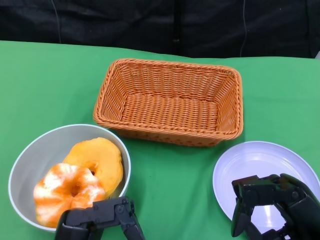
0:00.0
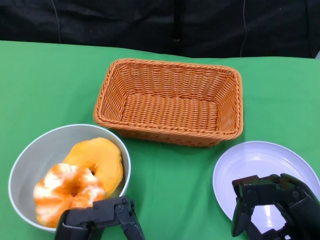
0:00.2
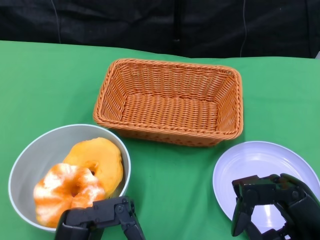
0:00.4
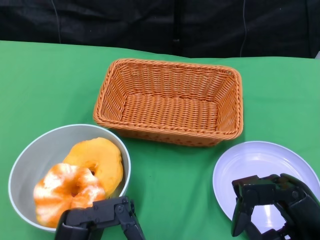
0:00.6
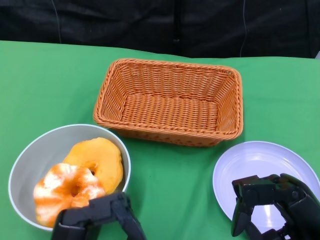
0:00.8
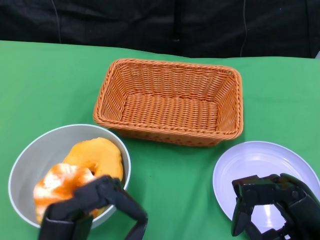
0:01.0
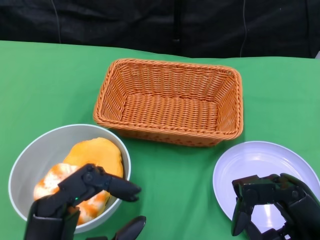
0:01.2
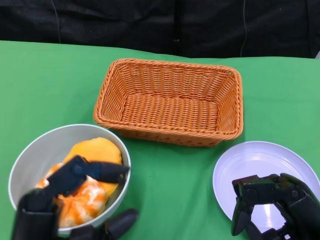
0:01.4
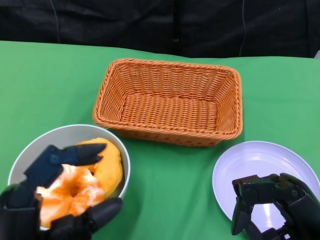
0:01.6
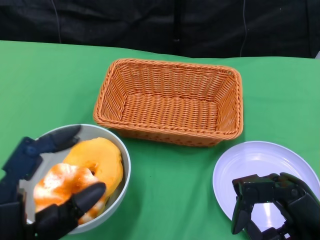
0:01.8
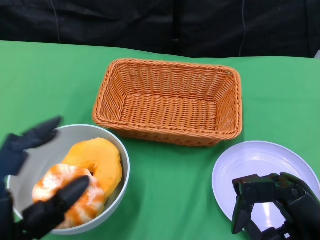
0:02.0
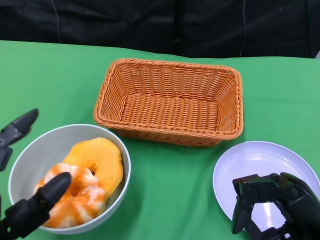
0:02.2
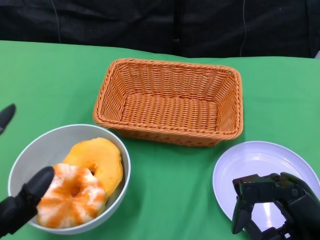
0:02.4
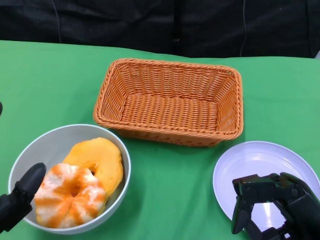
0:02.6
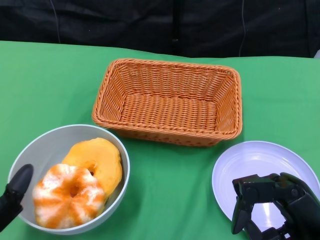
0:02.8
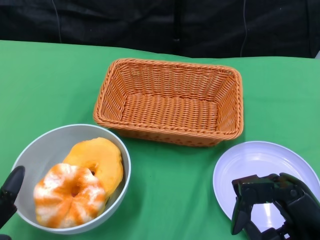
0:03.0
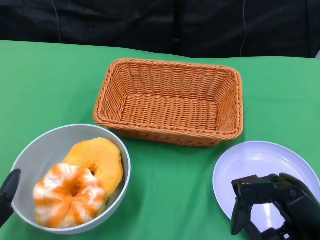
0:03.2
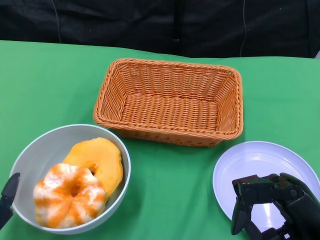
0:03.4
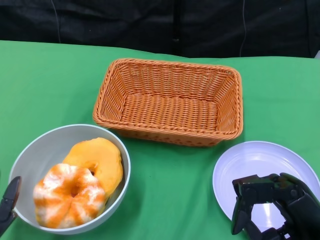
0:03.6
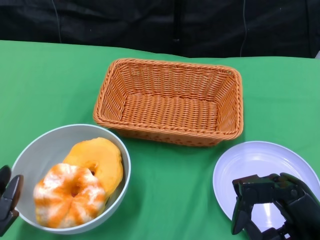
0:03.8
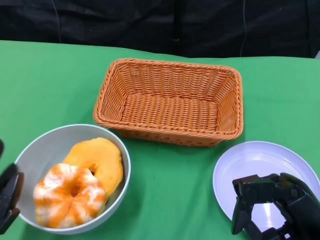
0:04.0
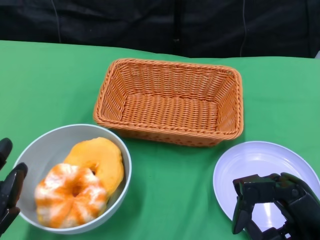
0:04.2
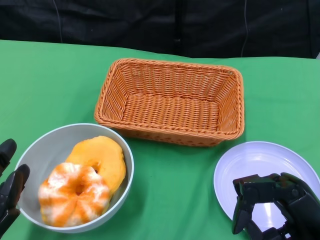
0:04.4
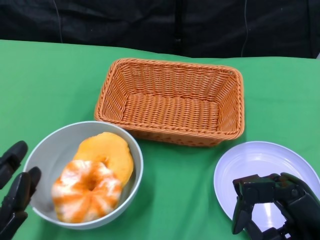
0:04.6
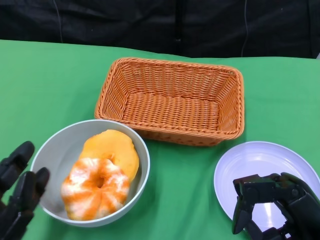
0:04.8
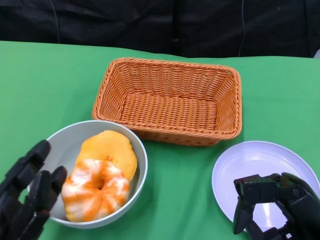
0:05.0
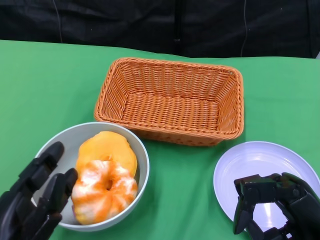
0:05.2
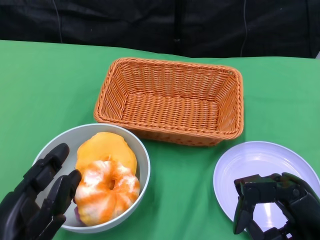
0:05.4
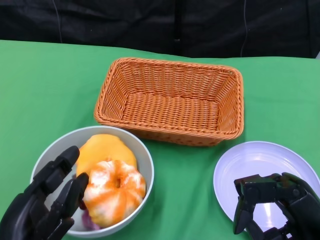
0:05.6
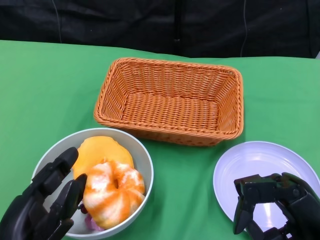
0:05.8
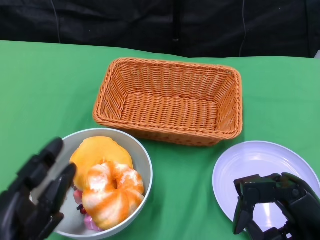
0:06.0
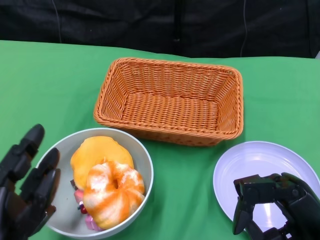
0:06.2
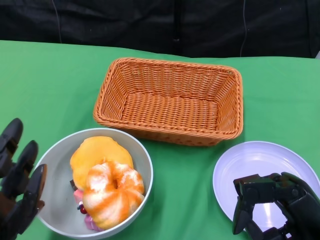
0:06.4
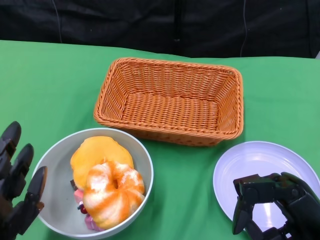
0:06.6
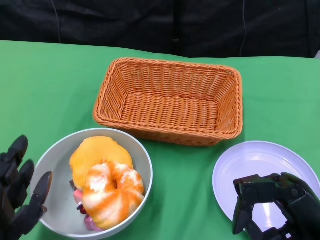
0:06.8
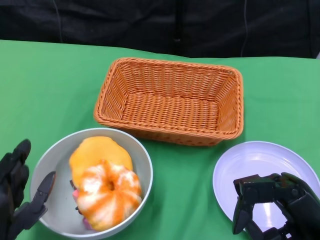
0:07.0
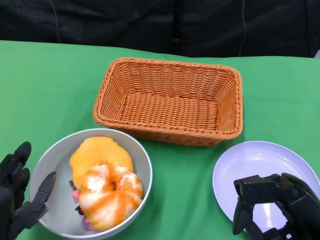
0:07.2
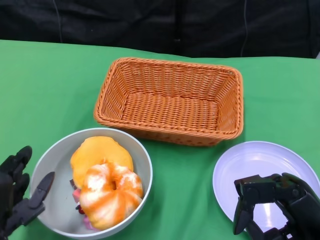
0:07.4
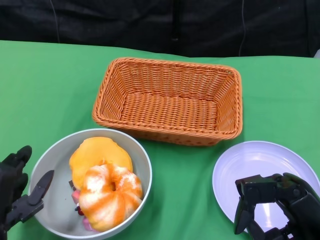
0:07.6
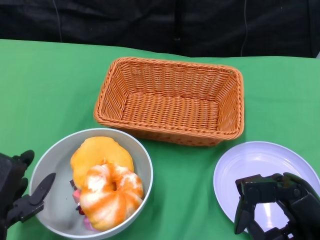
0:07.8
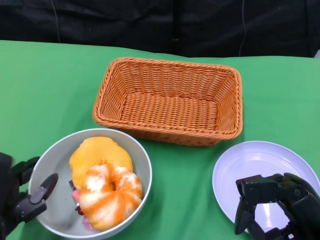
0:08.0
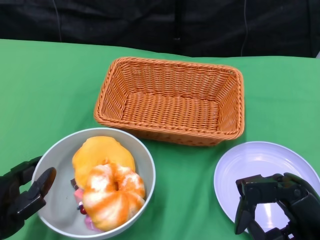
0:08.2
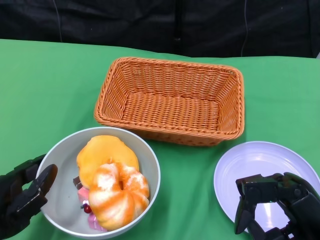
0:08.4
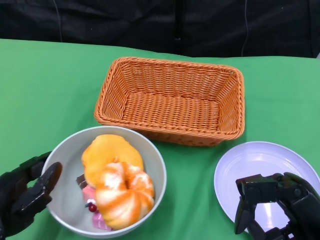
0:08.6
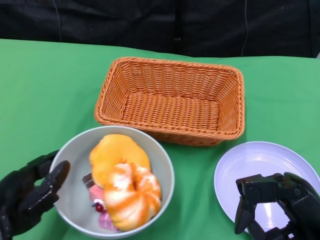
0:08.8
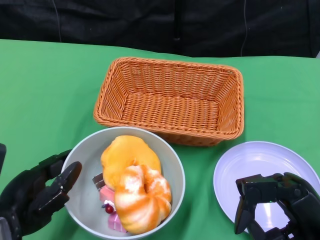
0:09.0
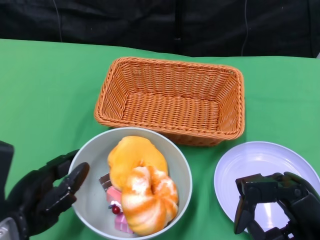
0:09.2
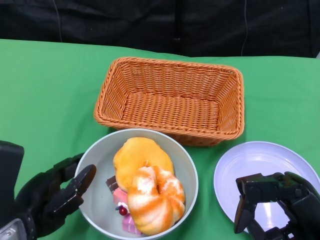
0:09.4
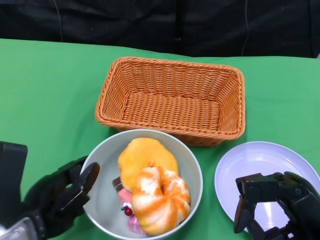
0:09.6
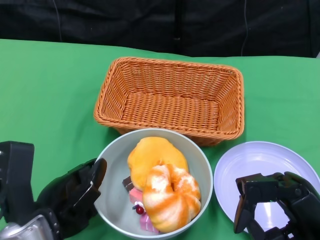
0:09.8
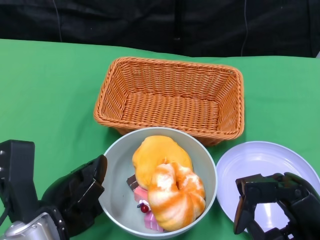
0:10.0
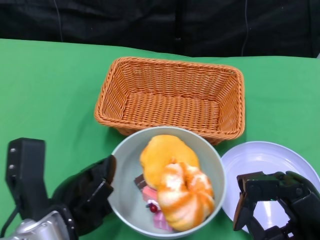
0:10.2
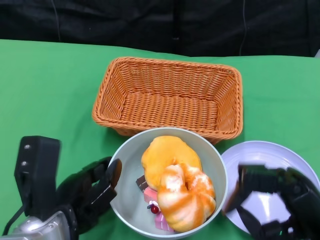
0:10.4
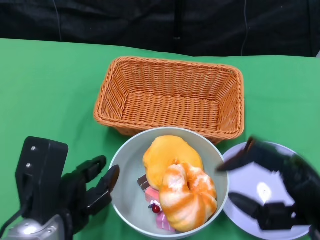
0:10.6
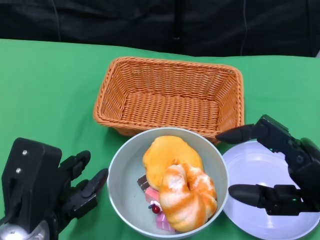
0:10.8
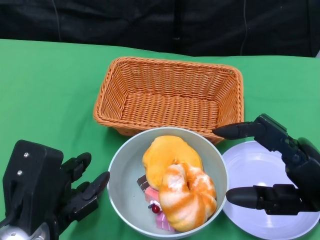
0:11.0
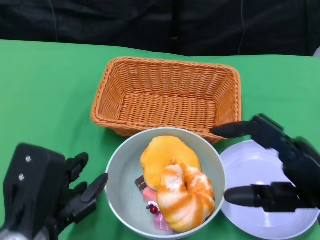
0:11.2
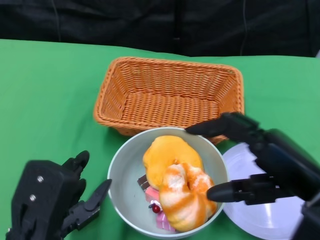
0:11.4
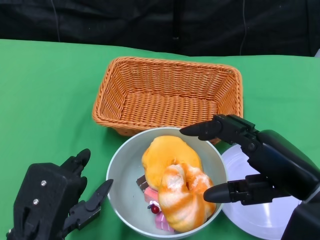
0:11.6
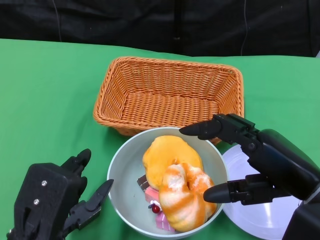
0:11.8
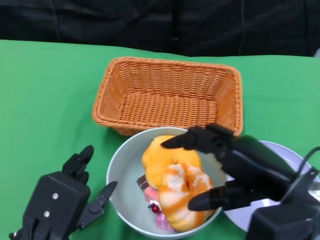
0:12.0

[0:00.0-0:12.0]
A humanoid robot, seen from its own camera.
Step, 0:00.0 to 0:10.6: Push the bowl to the center of the table using the left gripper.
0:01.6 to 0:03.0: The left hand moves to the left, roughly 5 cm.
0:04.4 to 0:06.0: The left hand changes place by about 5 cm.
0:09.0 to 0:10.4: The left hand shifts about 5 cm to the right.
0:10.4 to 0:12.0: The right hand moves upward, approximately 5 cm.

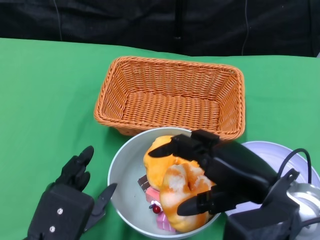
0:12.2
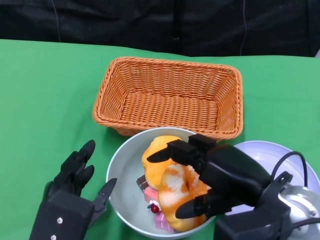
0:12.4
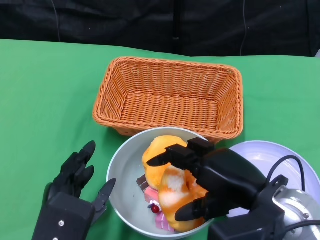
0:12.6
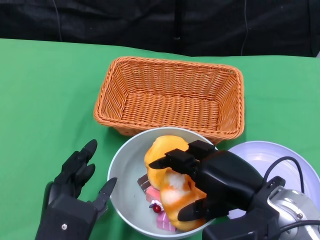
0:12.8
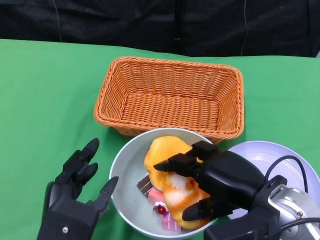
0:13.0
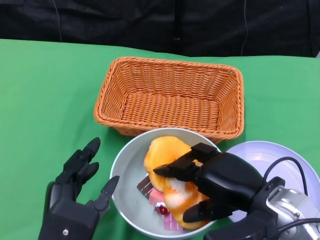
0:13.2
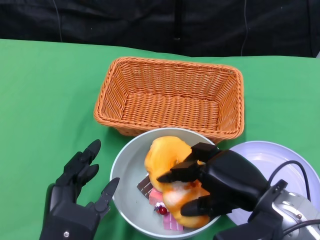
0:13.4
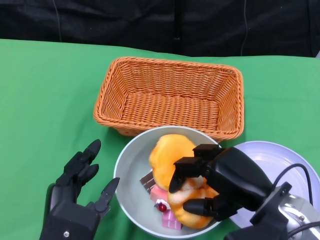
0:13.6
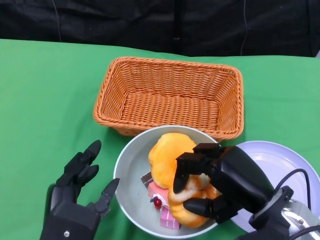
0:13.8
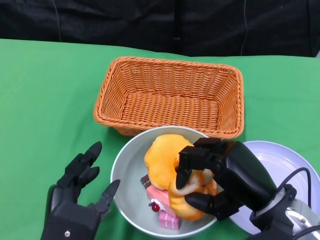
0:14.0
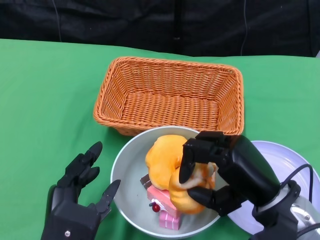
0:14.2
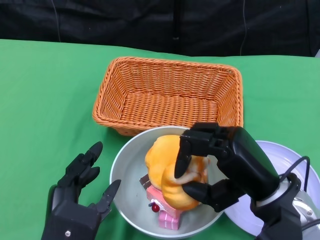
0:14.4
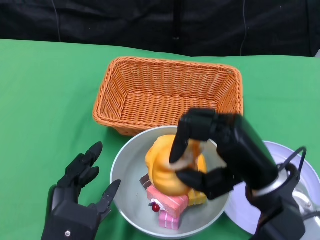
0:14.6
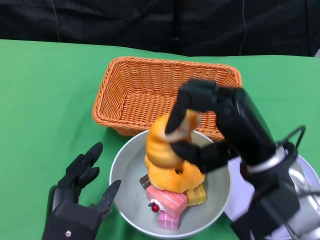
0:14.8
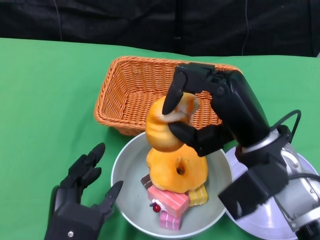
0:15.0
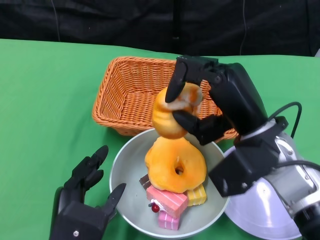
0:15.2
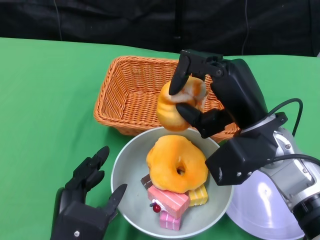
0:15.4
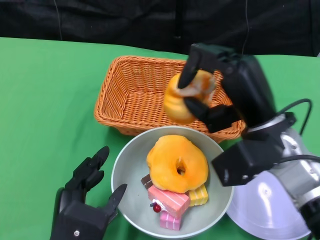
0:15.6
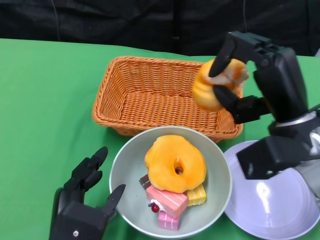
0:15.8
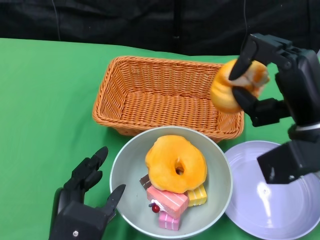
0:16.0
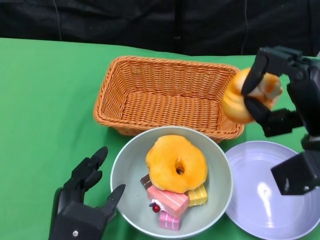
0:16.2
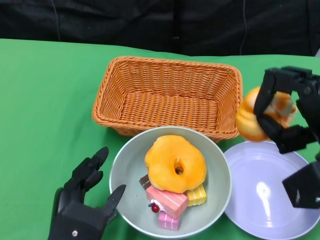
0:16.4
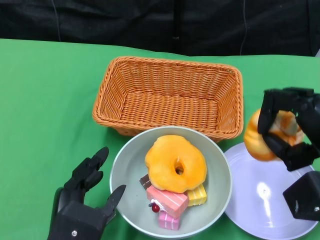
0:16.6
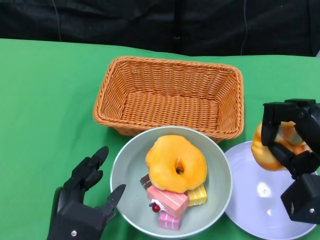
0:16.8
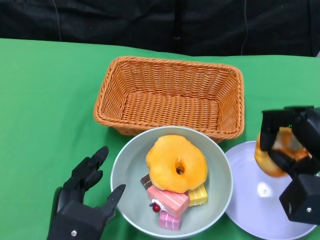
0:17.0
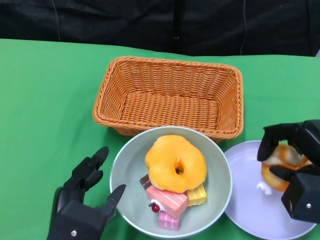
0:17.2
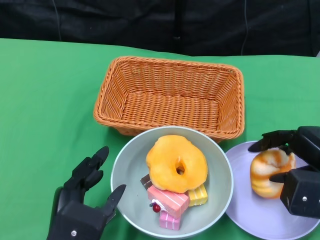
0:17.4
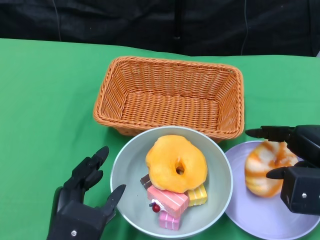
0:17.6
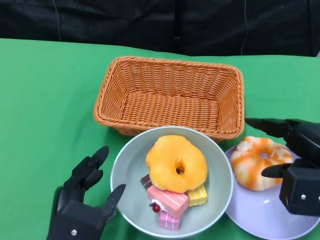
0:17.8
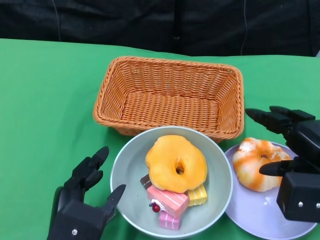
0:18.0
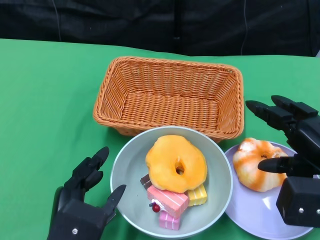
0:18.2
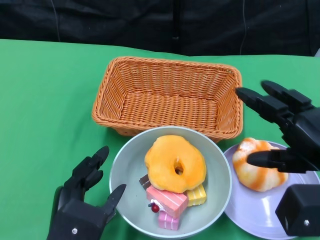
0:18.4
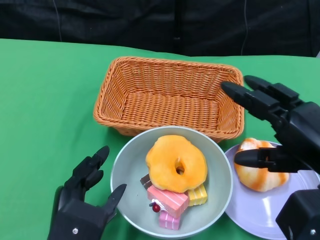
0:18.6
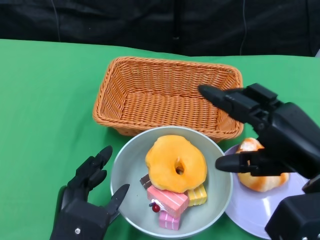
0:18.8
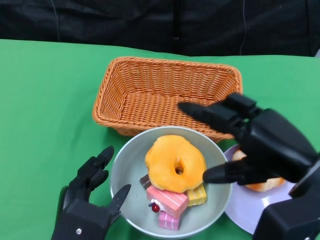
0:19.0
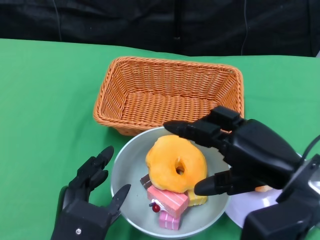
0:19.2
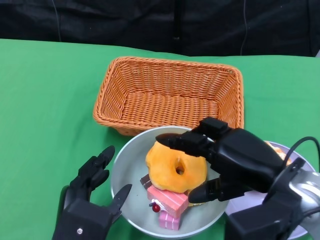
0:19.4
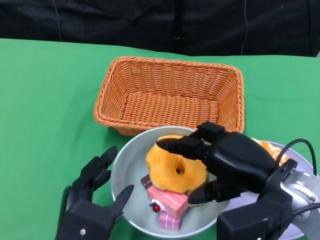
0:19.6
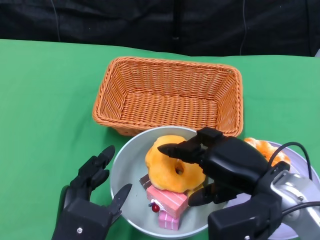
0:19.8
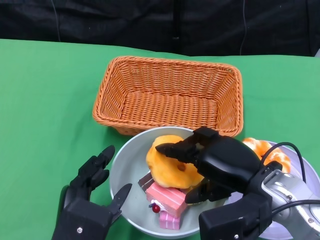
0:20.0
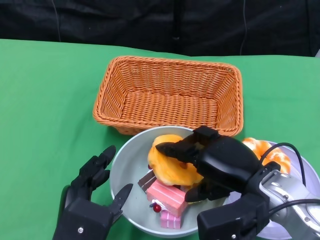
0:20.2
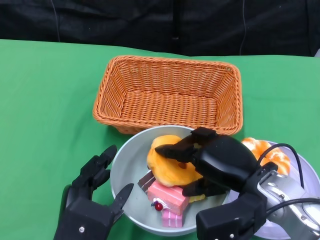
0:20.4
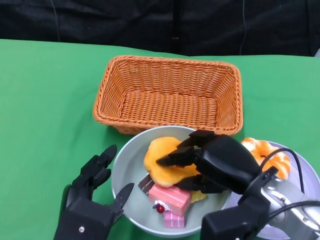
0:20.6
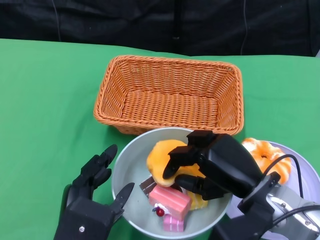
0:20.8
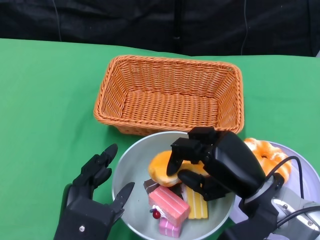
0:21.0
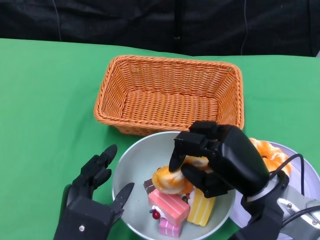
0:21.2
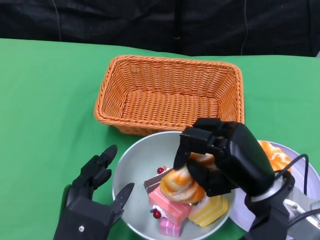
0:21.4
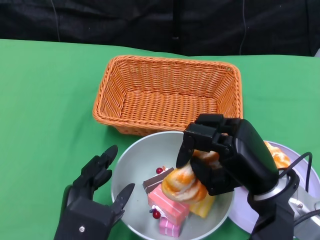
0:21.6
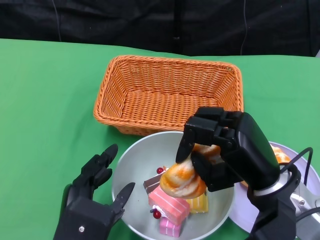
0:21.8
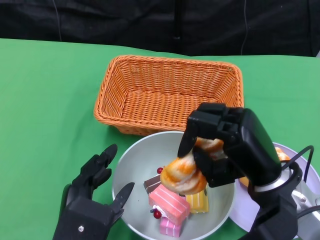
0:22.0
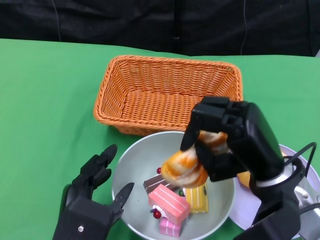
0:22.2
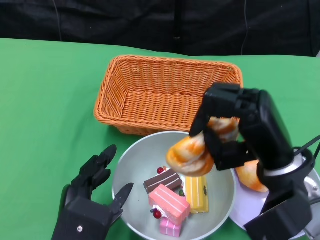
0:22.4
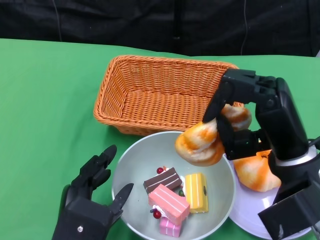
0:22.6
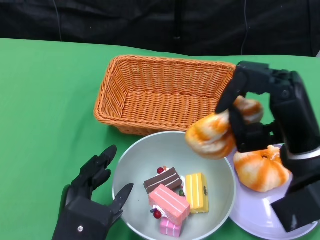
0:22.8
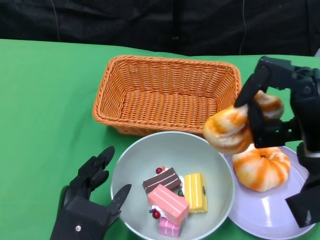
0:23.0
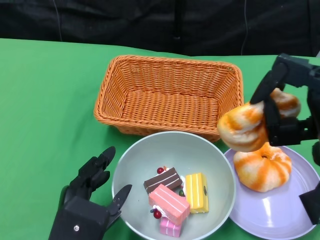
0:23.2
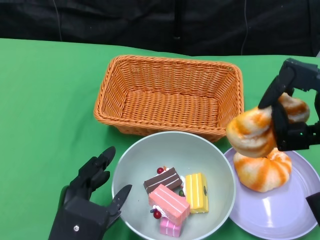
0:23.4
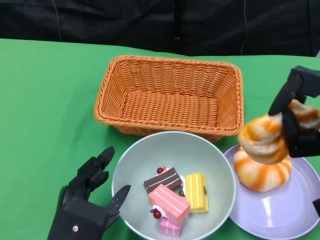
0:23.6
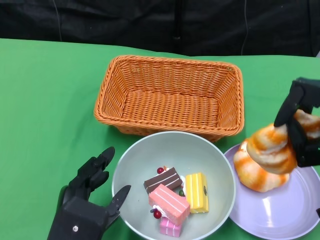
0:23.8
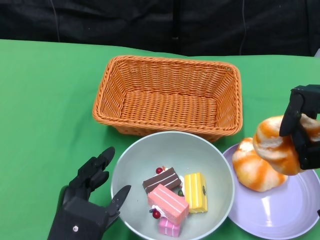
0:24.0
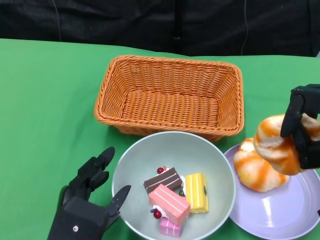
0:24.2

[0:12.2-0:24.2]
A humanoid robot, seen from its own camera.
Step, 0:12.2 to 0:18.4: Pick up the bread with the right gripper and place it on the plate.
0:12.2 to 0:13.8: The right hand is displaced downward by about 5 cm.
0:13.8 to 0:15.2: The right hand travels upward and forward by roughly 10 cm.
0:15.2 to 0:16.6: The right hand travels to the right by roughly 10 cm.
0:18.2 to 0:19.8: The right hand travels to the left by some 10 cm.
0:21.2 to 0:22.6: The right hand heads upward, covering roughly 5 cm.
0:22.6 to 0:24.2: The right hand travels to the right by some 10 cm.
